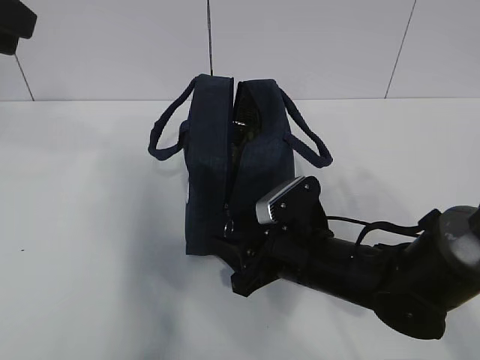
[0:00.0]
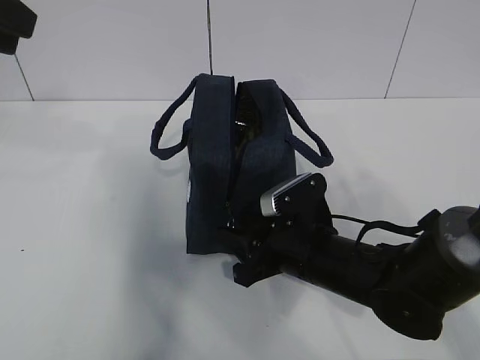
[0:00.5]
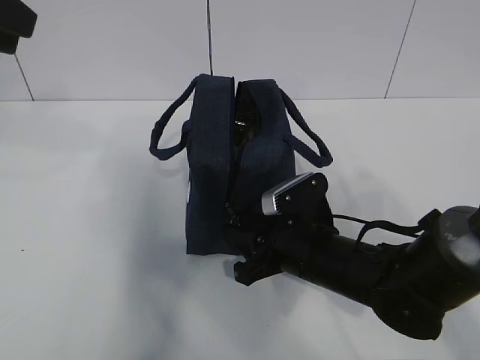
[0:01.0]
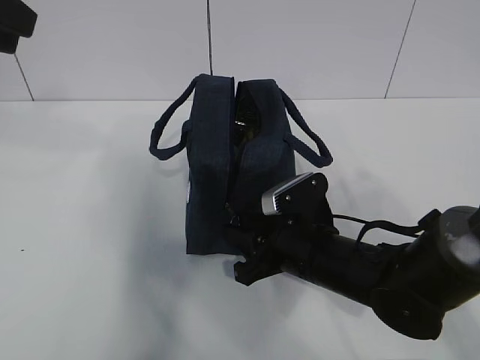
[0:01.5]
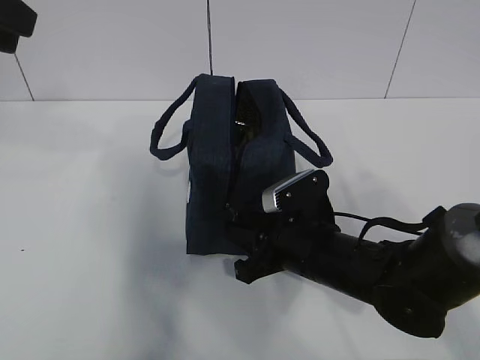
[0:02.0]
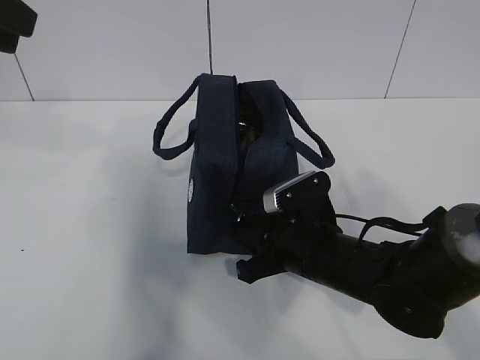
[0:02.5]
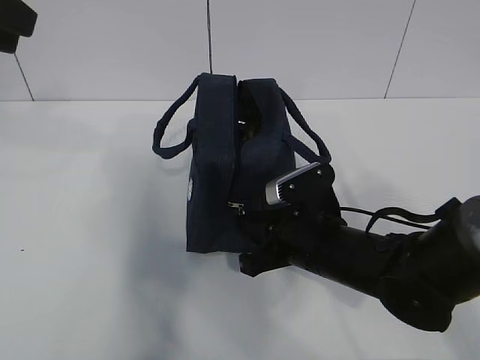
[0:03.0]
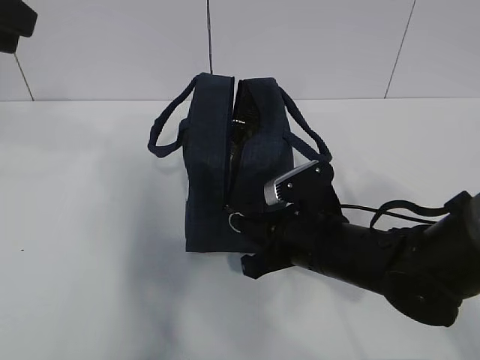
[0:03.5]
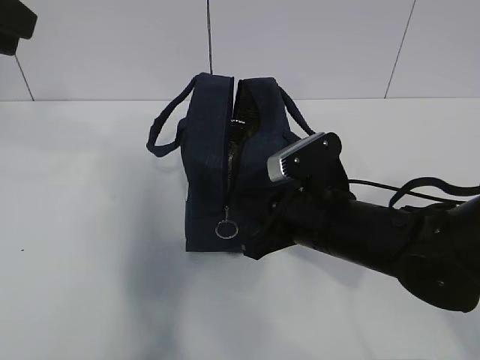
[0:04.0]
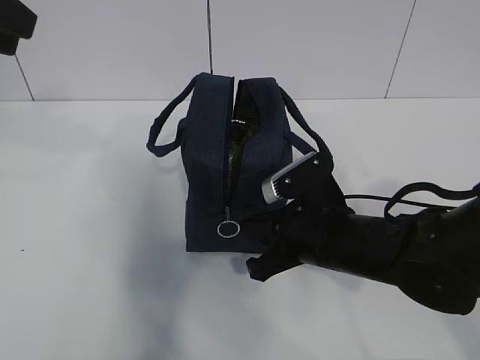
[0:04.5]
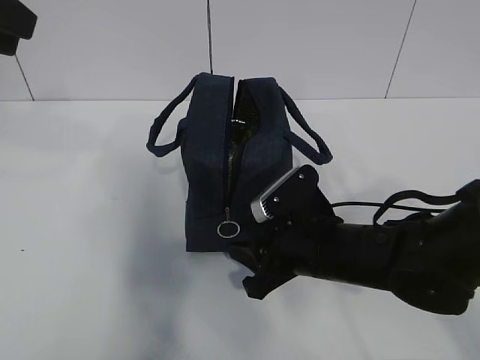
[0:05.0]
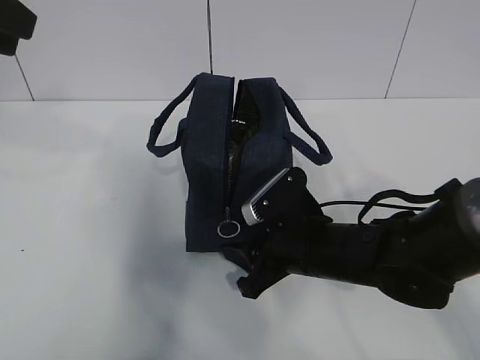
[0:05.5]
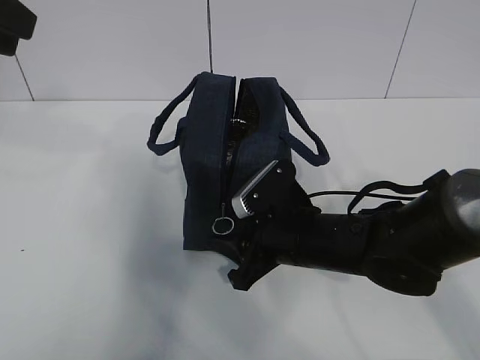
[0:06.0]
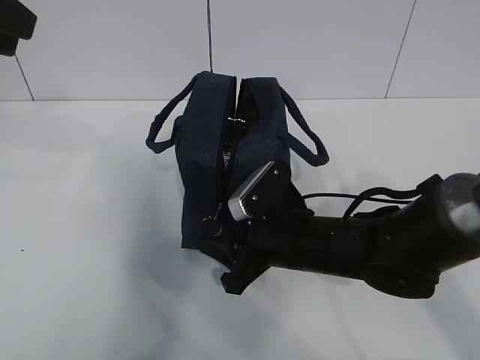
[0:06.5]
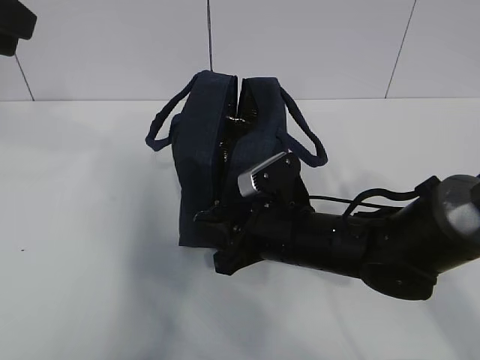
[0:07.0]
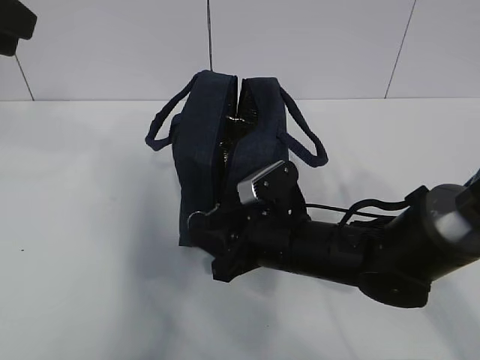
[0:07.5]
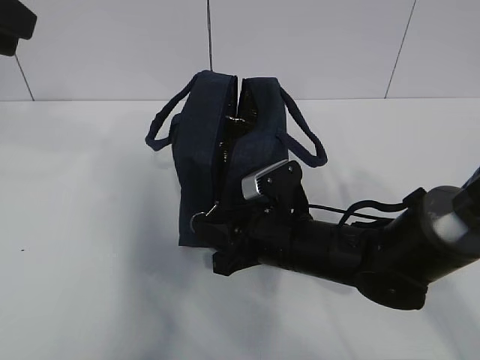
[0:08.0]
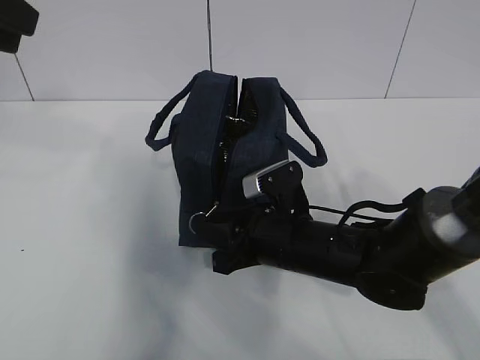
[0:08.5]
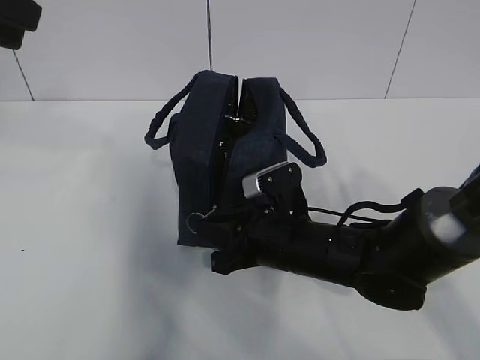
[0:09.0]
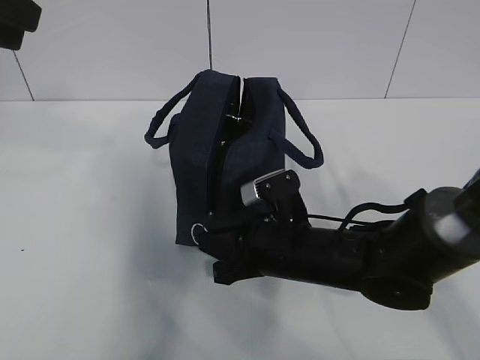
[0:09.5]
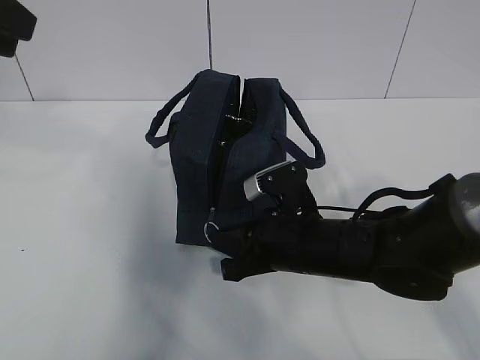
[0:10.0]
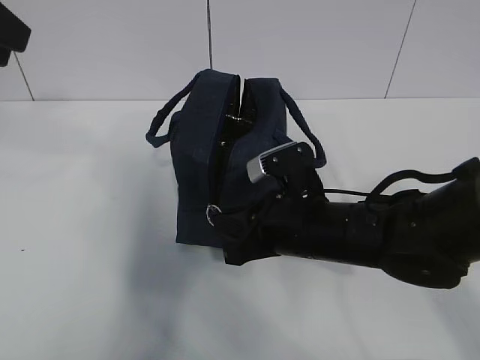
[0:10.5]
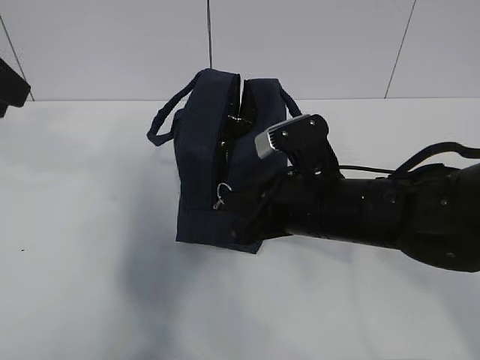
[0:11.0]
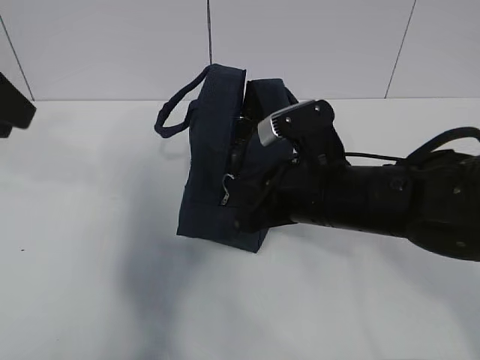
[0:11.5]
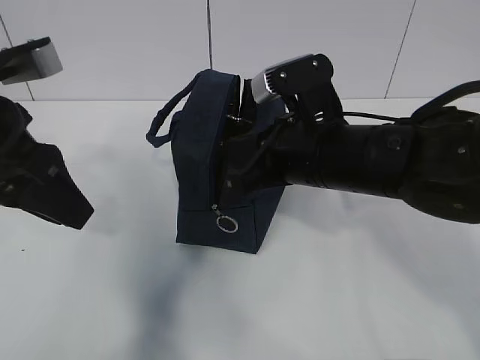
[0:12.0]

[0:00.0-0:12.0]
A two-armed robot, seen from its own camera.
0:00.0 to 0:02.0: The right gripper closes up.
0:02.0 to 0:04.0: The right gripper is displaced upward by approximately 5 cm.
0:04.0 to 0:06.0: The right gripper opens up.
0:08.0 to 0:10.0: The right gripper closes.
0:10.0 to 0:12.0: The right gripper travels upward by some 10 cm. The left gripper moves downward, approximately 10 cm.

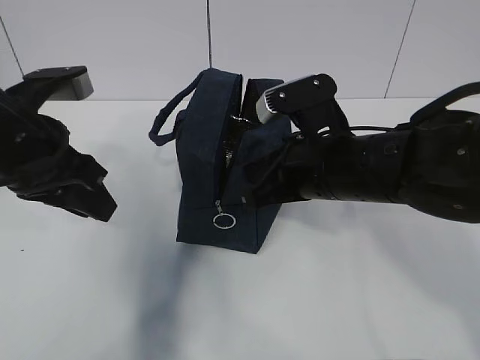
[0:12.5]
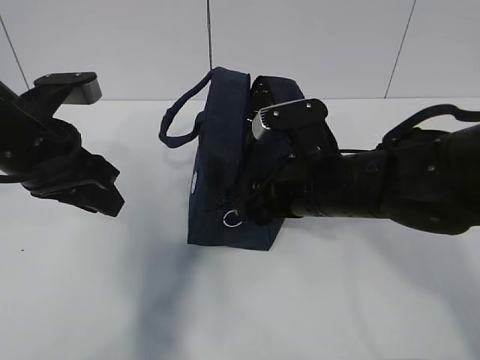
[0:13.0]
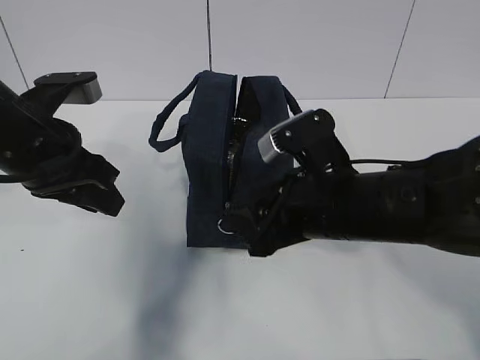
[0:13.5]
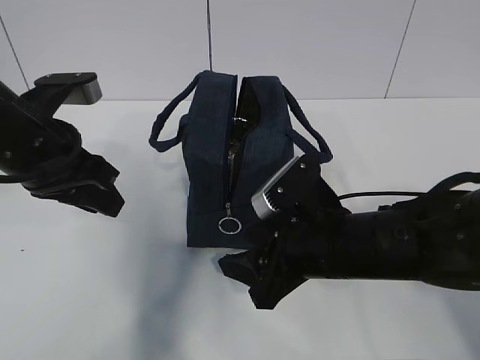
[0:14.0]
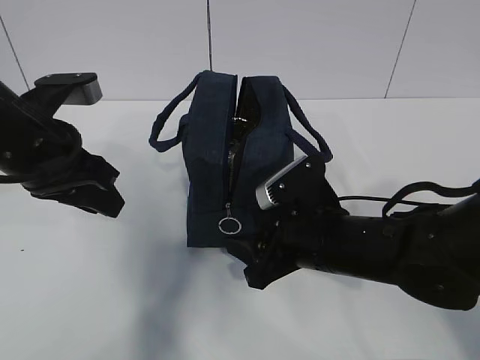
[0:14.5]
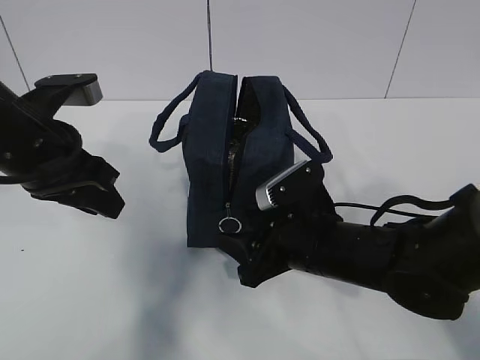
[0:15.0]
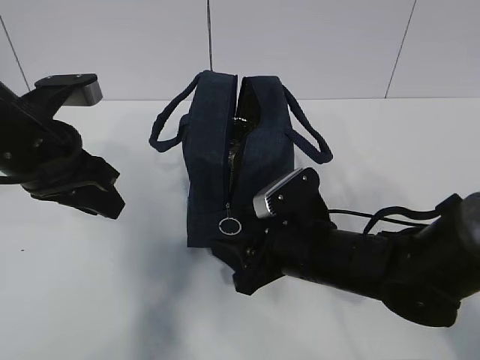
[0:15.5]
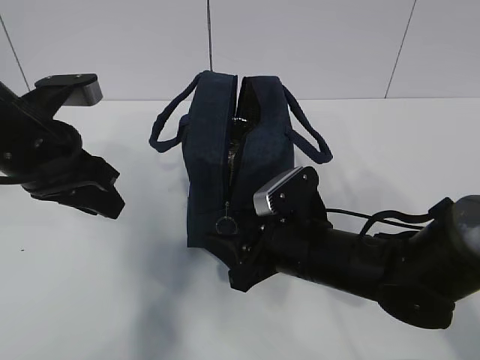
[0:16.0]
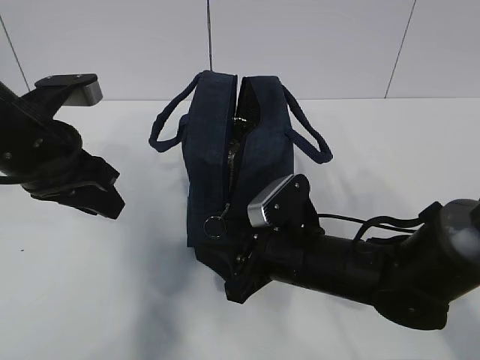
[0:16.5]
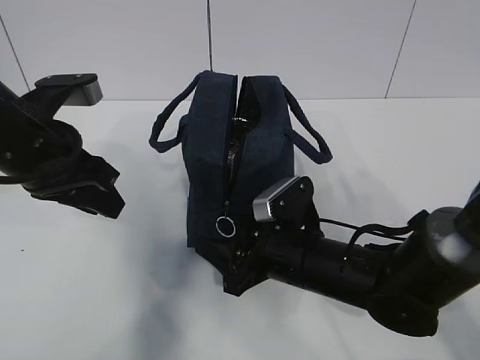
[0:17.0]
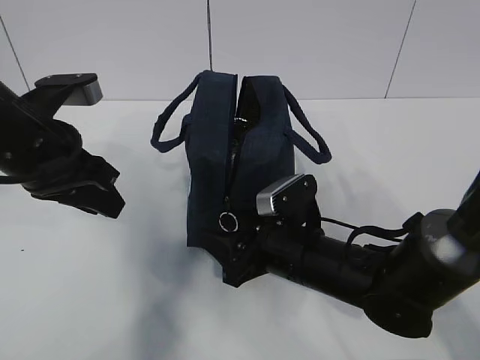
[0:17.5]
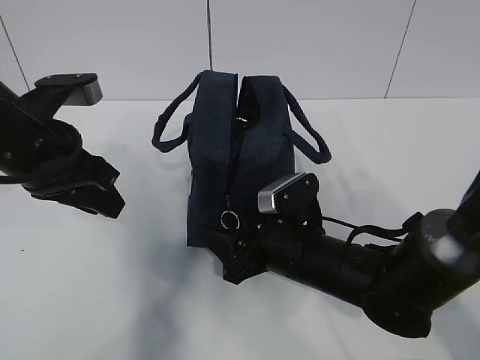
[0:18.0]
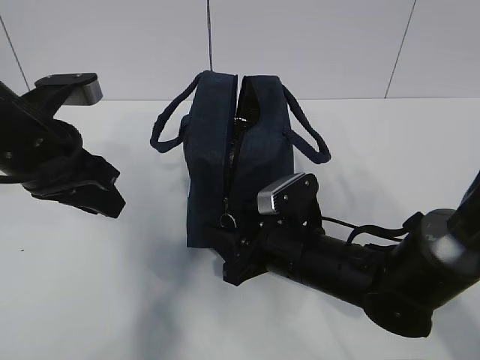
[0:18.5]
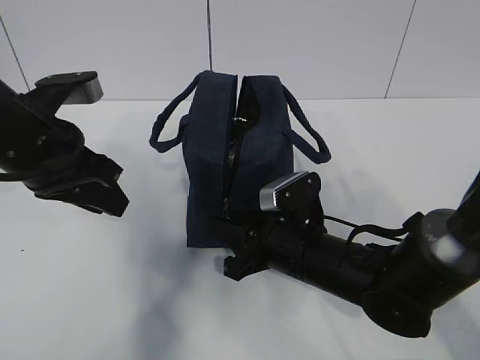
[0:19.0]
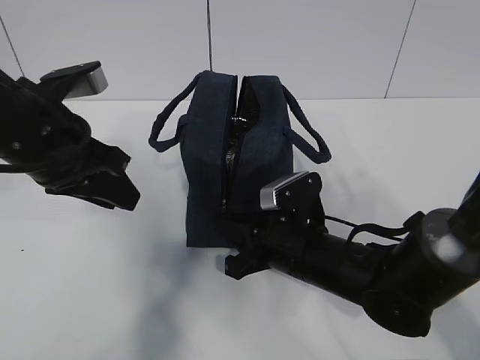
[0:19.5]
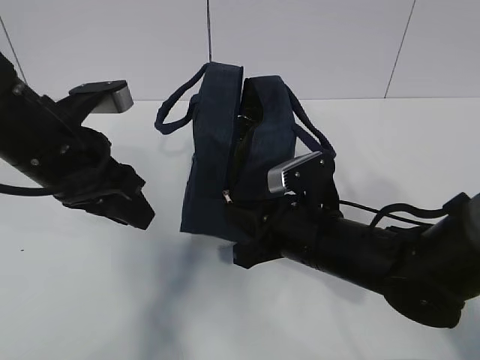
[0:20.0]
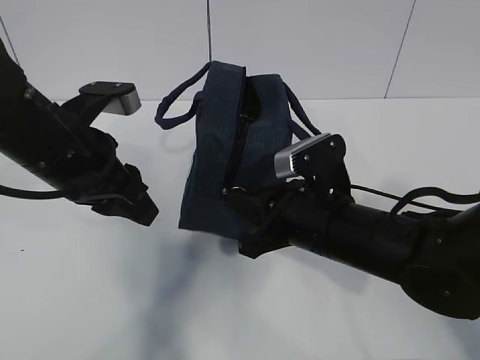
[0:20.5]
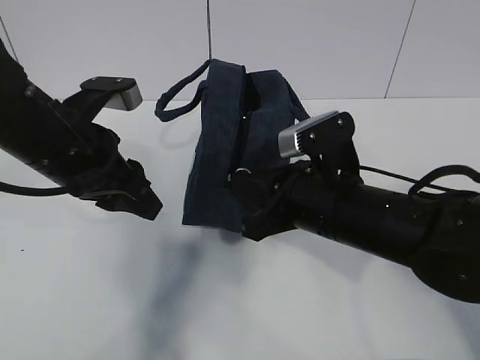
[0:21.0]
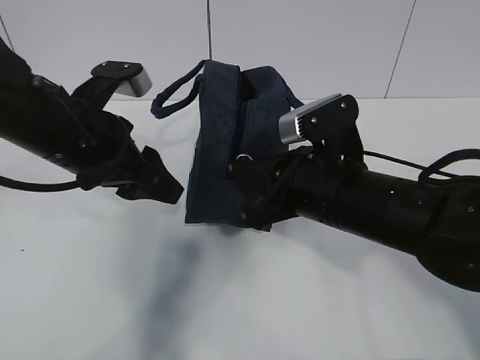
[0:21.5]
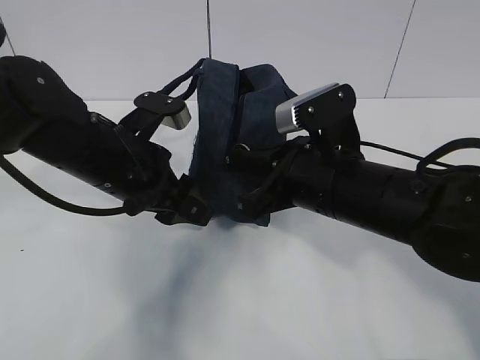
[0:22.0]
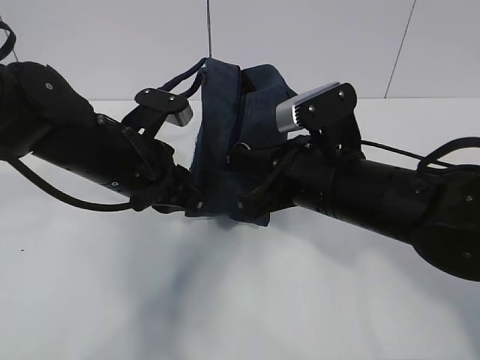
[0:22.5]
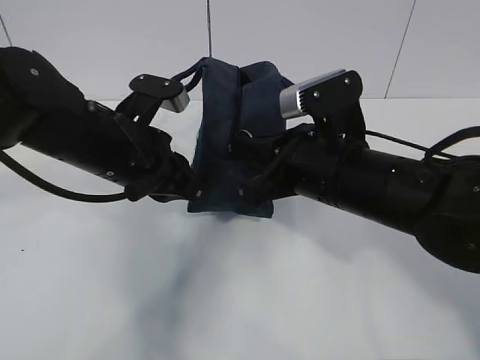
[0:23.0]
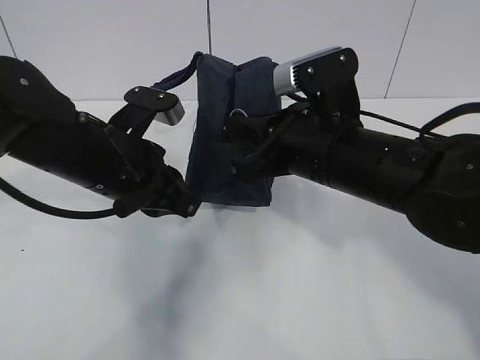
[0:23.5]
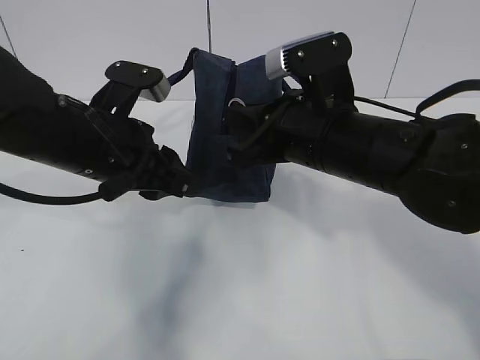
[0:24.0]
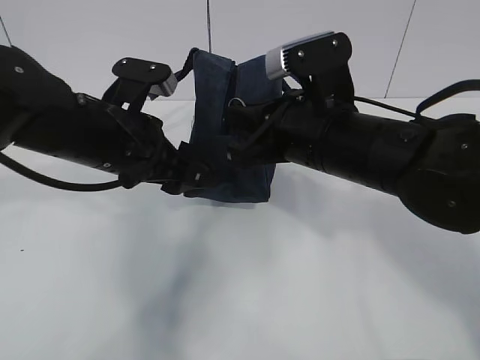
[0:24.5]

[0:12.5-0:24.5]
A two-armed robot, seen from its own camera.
0:12.5 to 0:14.5: The right gripper shifts roughly 10 cm downward, and opens.
0:14.5 to 0:16.5: The grippers stay close to where they were, moving slightly.
0:16.5 to 0:18.5: The grippers make only small movements.
0:18.5 to 0:20.5: The right gripper shifts about 5 cm upward, and closes its fingers.
0:20.5 to 0:22.5: The right gripper shifts by roughly 5 cm. Meanwhile the left gripper ends up approximately 5 cm from where it was, and closes its fingers.
0:22.5 to 0:24.5: The left gripper opens up.

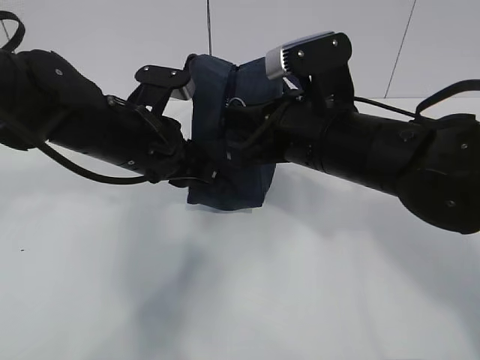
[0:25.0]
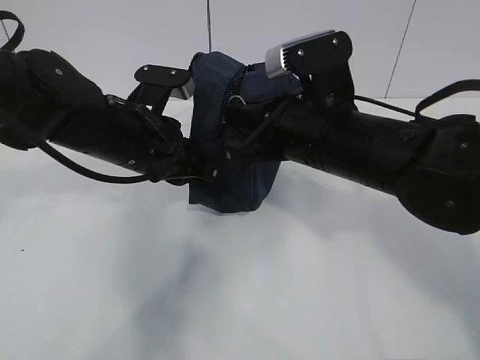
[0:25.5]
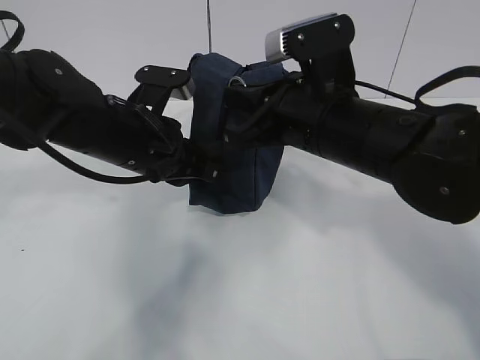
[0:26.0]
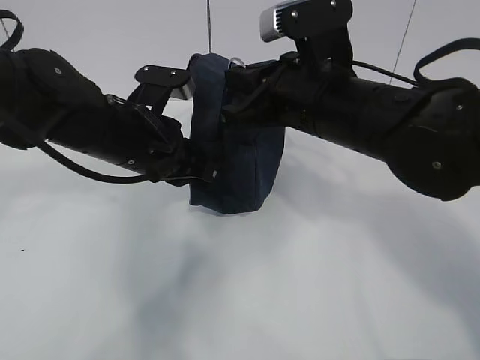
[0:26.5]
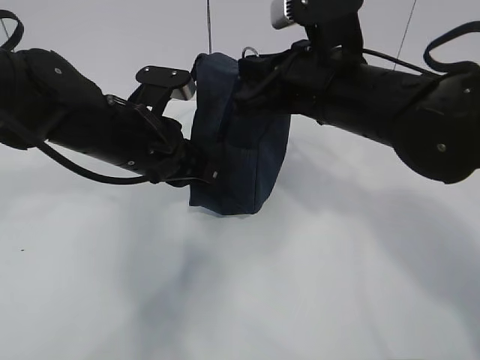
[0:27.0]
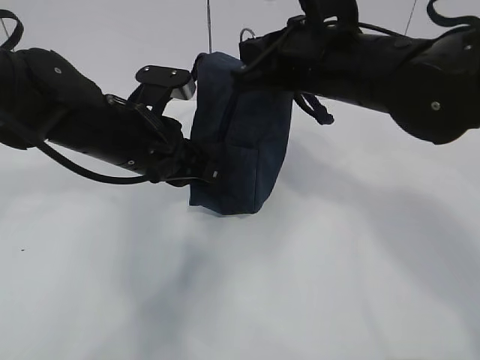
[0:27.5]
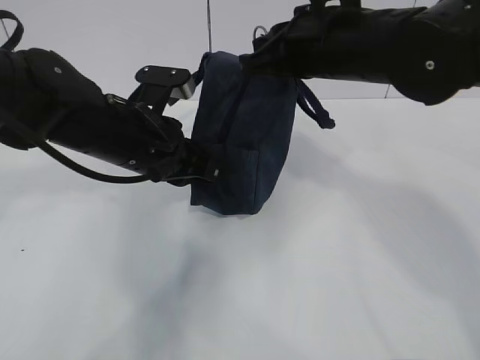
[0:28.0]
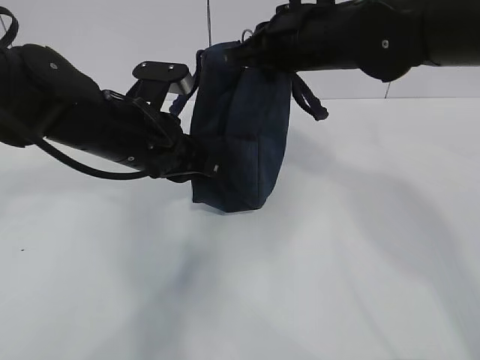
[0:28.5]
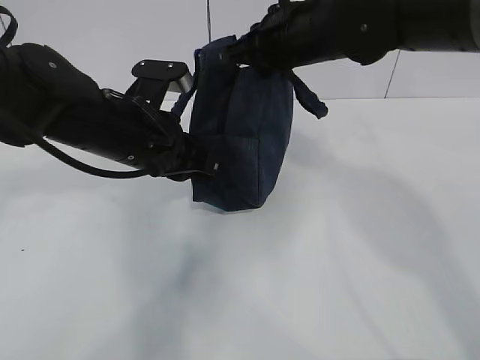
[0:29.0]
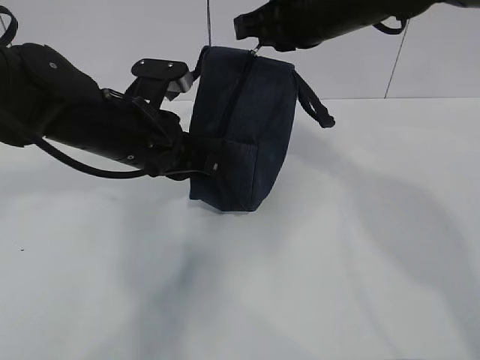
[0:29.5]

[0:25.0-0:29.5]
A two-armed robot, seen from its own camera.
0:25.0 to 0:27.0: The left gripper closes.
0:27.0 to 0:29.5: The right gripper moves upward and forward, roughly 10 cm.
